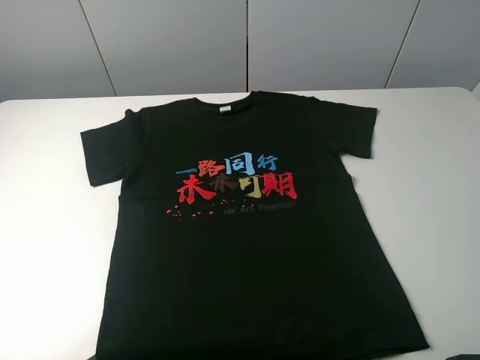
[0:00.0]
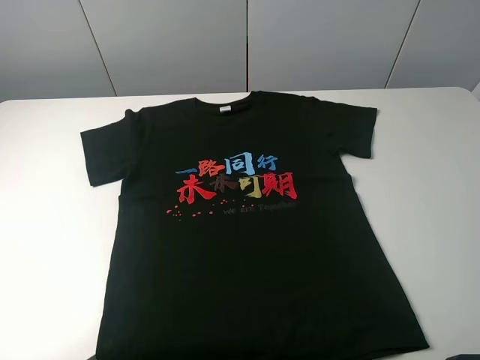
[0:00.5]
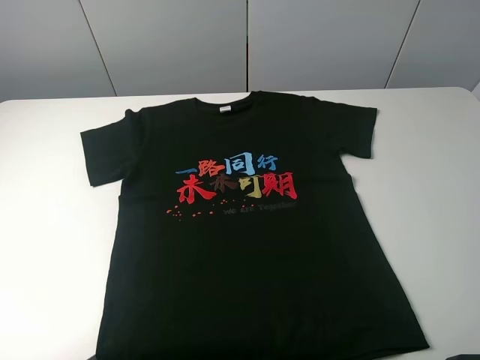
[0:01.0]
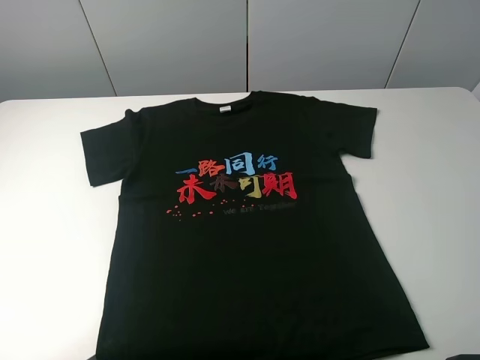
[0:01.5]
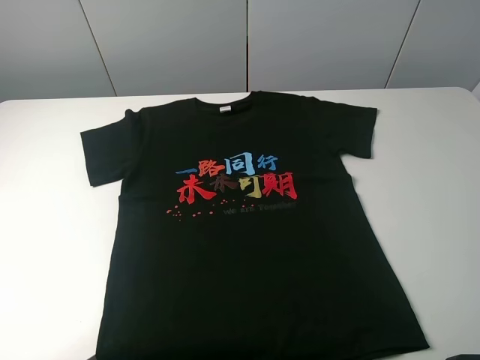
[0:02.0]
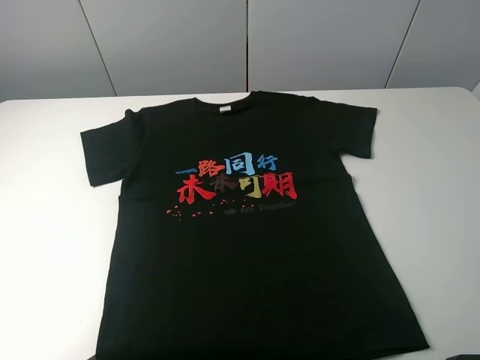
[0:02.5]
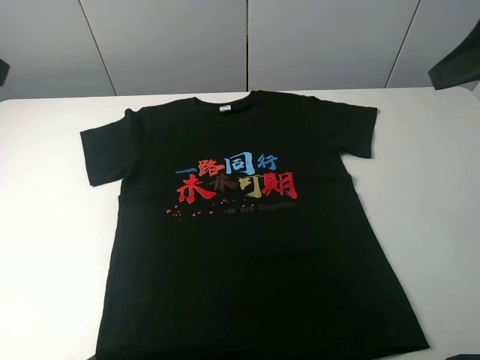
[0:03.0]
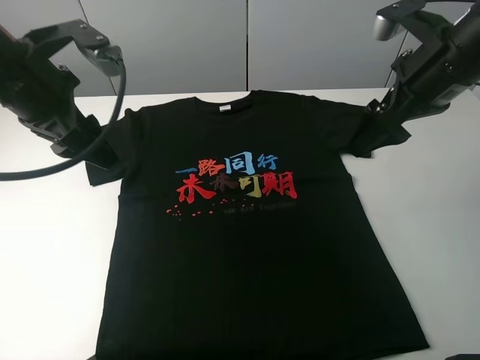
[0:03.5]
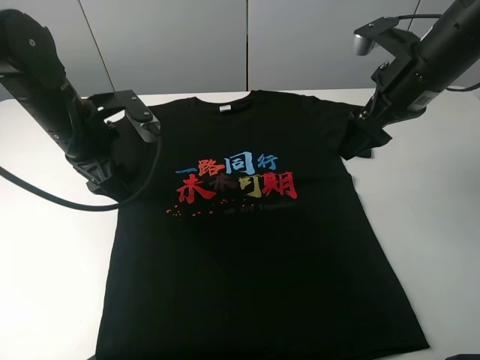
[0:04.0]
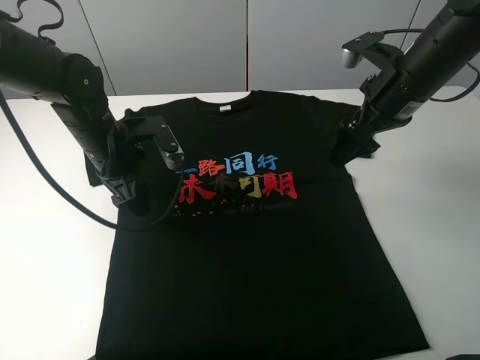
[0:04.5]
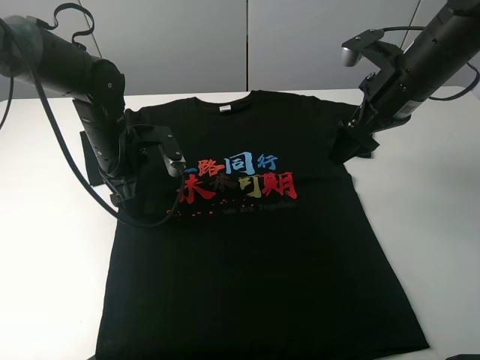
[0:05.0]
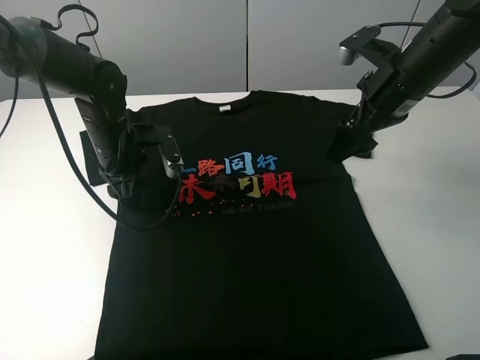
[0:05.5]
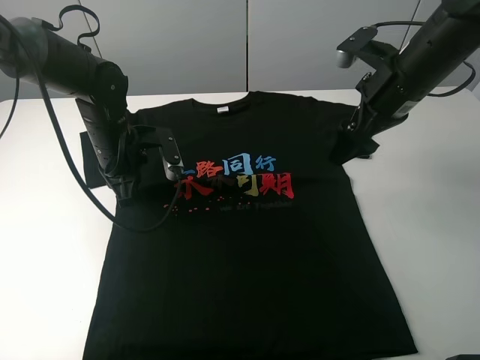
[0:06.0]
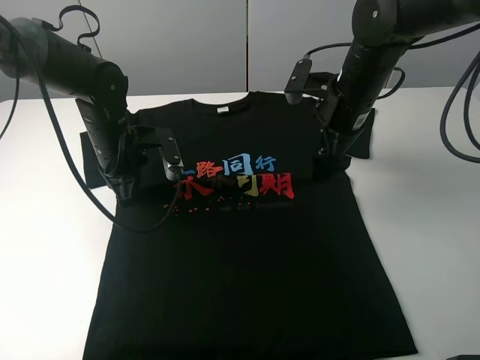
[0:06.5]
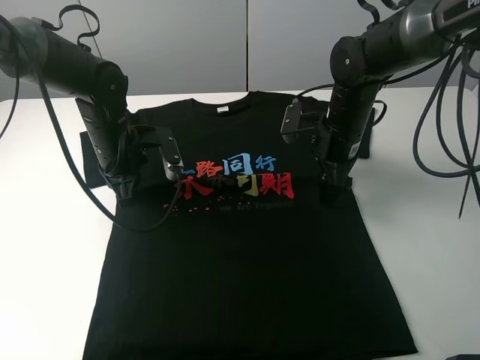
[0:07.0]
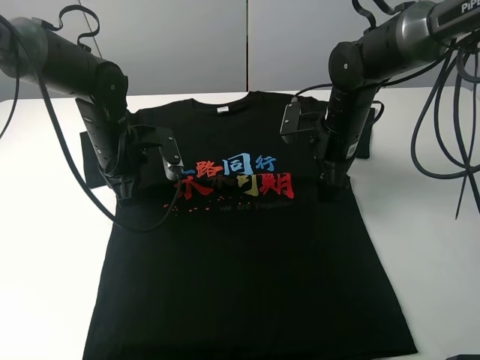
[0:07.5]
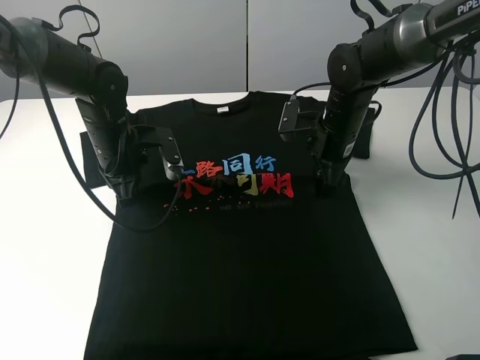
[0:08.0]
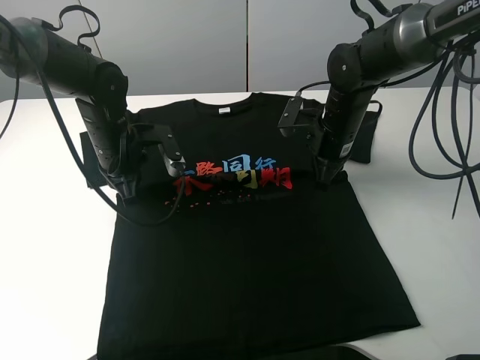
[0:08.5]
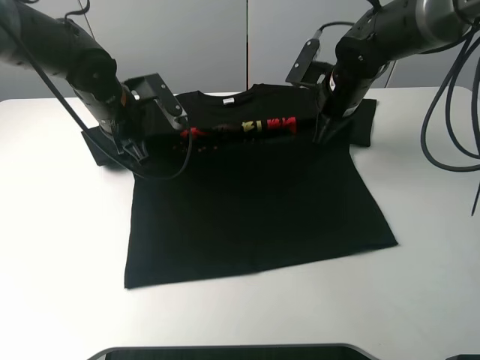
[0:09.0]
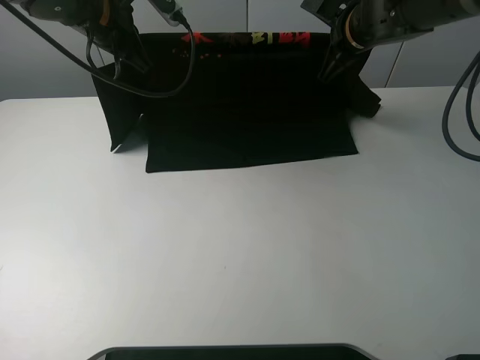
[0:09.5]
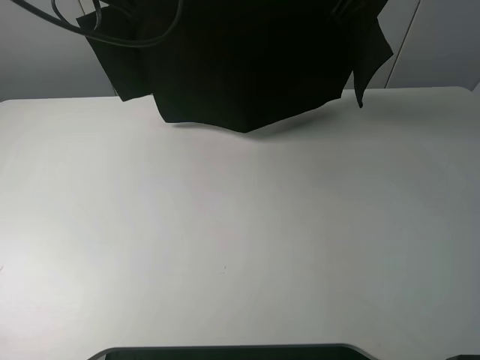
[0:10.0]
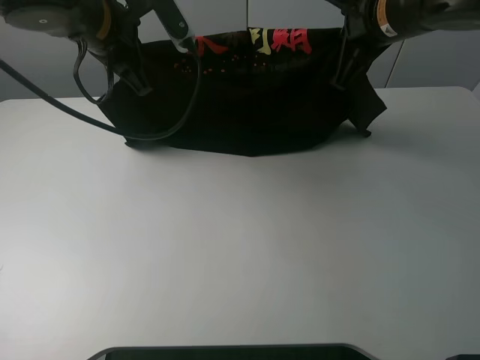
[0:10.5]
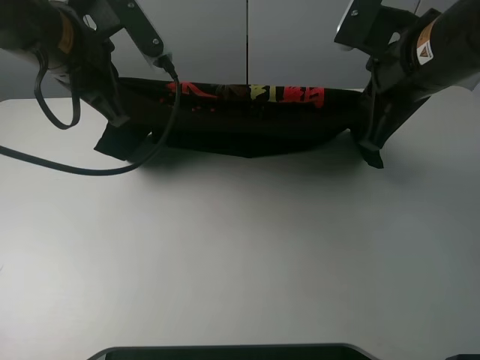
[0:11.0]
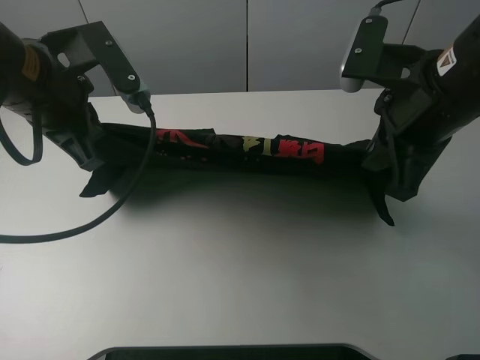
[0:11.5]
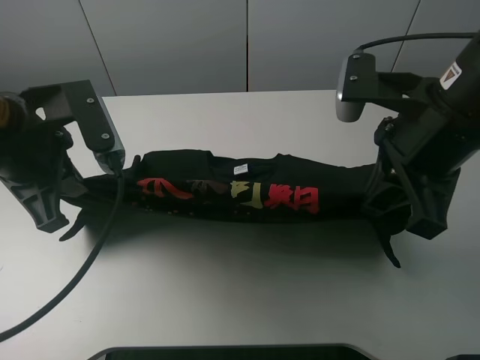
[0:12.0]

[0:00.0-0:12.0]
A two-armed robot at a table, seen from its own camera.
Task of the whole recording: fold the clothes on the table.
Step, 0:00.0 to 0:08.0: Lift the black T-shirt with the left gripper.
0:00.0 to 0:02.0: Both grippers stay put.
0:02.0 to 0:04.0: The left gripper goes roughly 35 cm forward, to the right and downward, while the right gripper travels forward by approximately 30 cm.
0:04.0 to 0:06.0: The left gripper shifts about 5 cm downward, and closes up.
0:06.0 to 0:08.0: The right gripper moves downward, approximately 10 cm, and closes up.
0:08.0 to 0:10.0: The two grippers go roughly 20 cm upward. The right gripper closes its fingers.
0:10.0 to 0:12.0: The left gripper moves backward and downward, approximately 20 cm; the right gripper travels backward by approximately 20 cm.

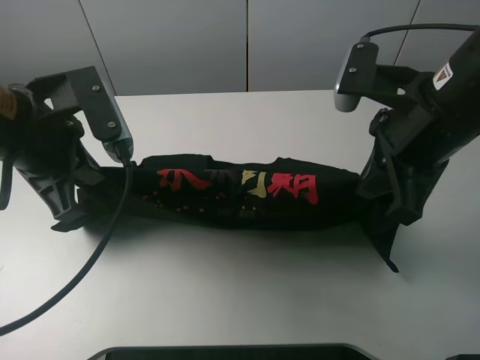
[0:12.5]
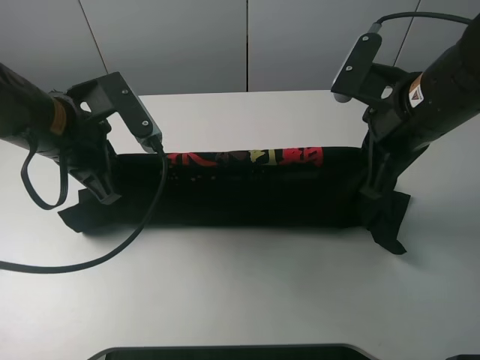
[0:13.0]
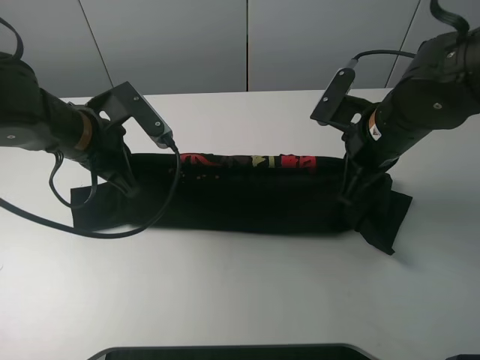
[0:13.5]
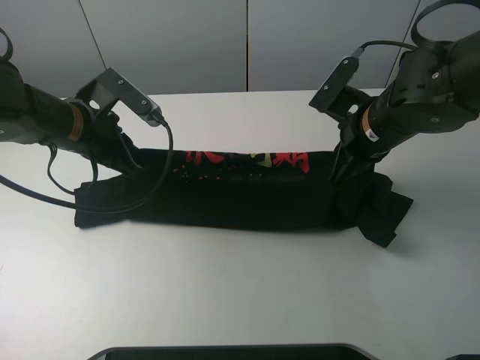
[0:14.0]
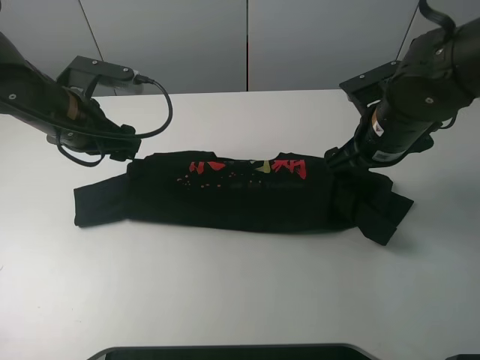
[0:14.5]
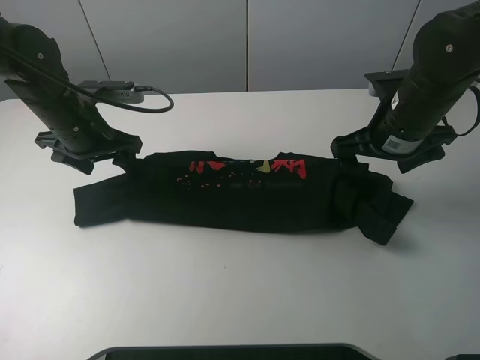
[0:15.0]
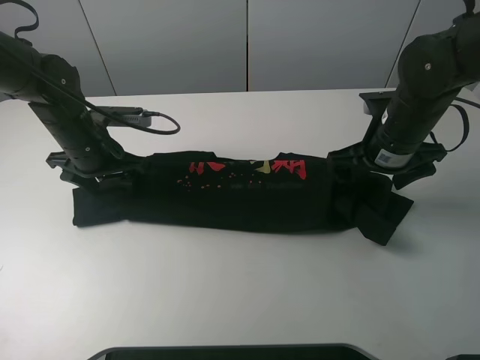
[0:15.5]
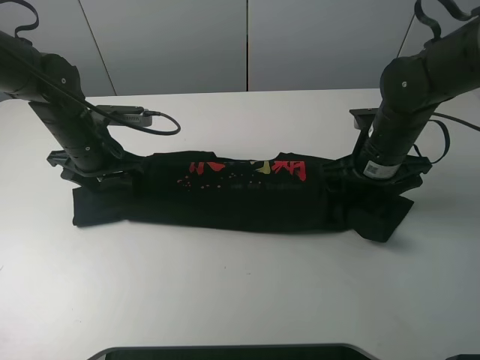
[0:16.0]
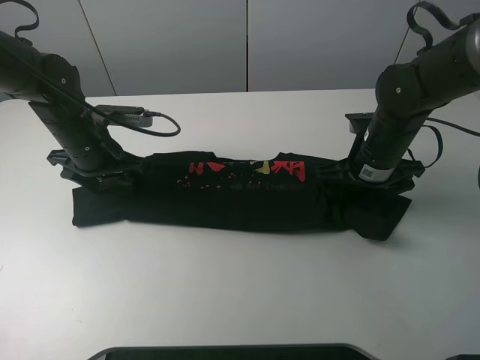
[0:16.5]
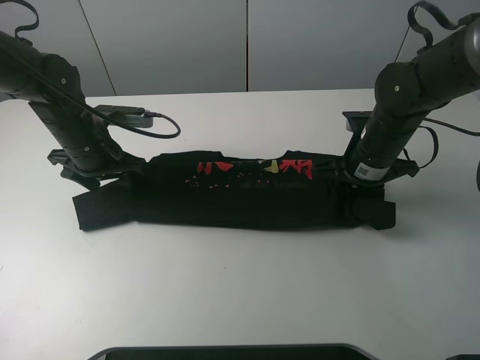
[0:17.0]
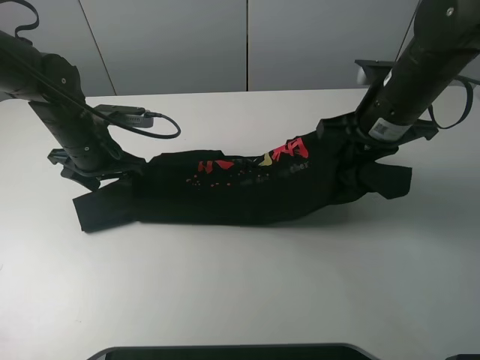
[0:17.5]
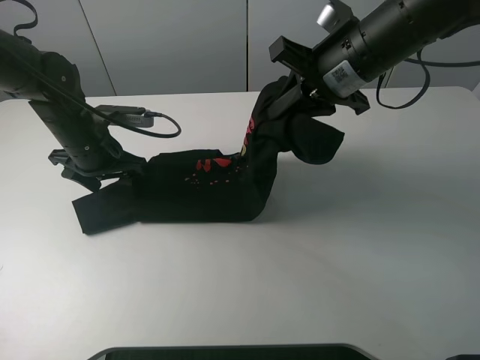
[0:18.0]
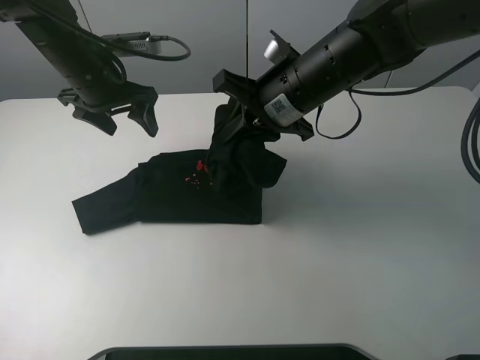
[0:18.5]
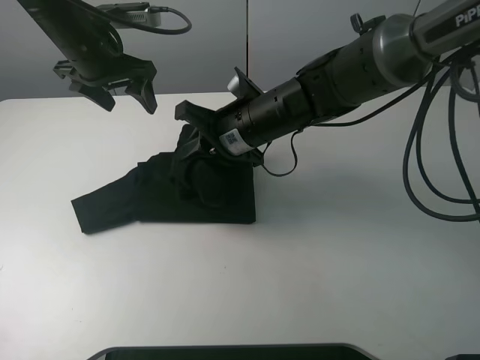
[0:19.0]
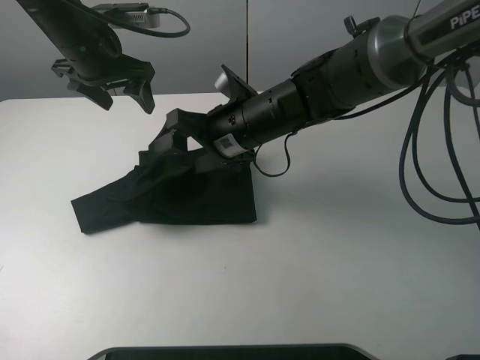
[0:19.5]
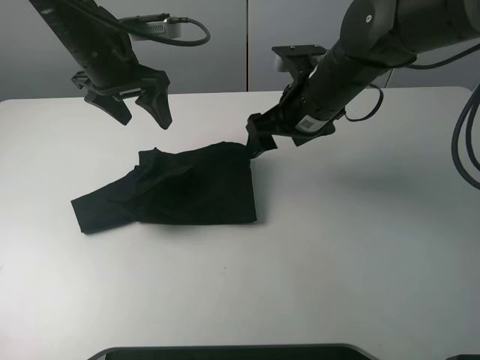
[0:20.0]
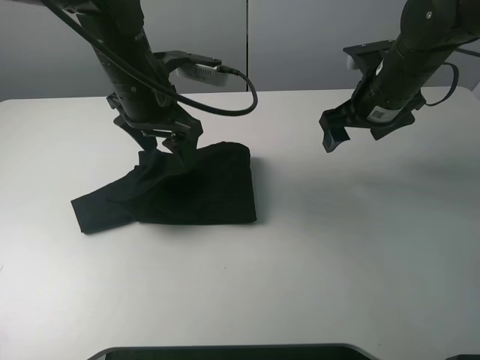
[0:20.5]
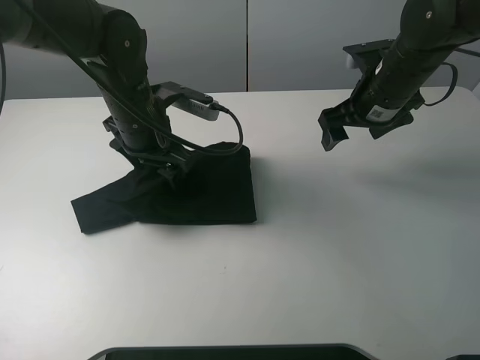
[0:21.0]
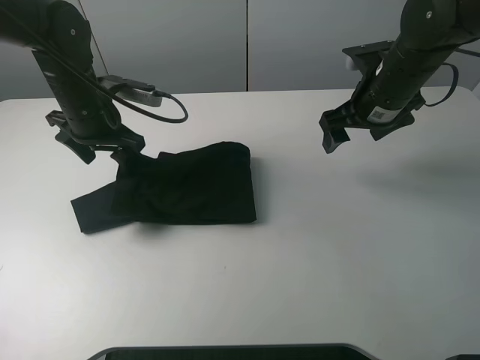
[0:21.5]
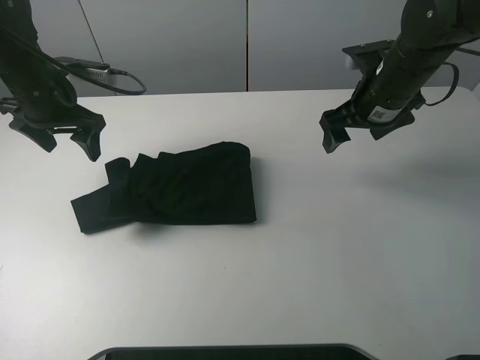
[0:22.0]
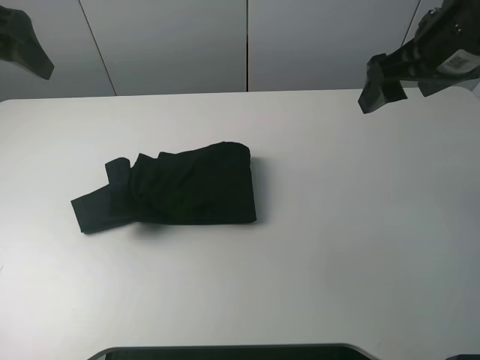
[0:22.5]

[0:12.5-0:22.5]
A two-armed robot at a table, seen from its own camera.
Task of the whole recording: fold the clothes on the table.
Step, 0:14.5 to 0:16.5: Grasp the black T-shirt with the right gripper.
Step, 0:17.0 to 0:19.5: Fold the black T-shirt from right to left with right gripper.
Step, 0:20.0 to 0:21.5: Use the left gripper to tidy up the clothes.
0:12.5 to 0:14.5: The left gripper travels forward and downward by about 10 cm, and opens its fingers, while the right gripper moves downward and forward, approximately 10 cm, and opens its fingers.
0:14.5 to 0:16.5: The grippers both shift downward by about 5 cm.
0:16.5 to 0:18.5: The left gripper moves upward, some 10 cm. Meanwhile the right gripper heads to the left and upward, covering some 15 cm, and closes its fingers.
0:18.5 to 0:20.5: The left gripper heads to the right and backward, covering approximately 10 cm, while the right gripper shifts roughly 15 cm to the right, and opens.
0:20.5 to 0:22.5: The right gripper goes about 15 cm upward and backward; the left gripper is displaced to the left and upward by some 20 cm.

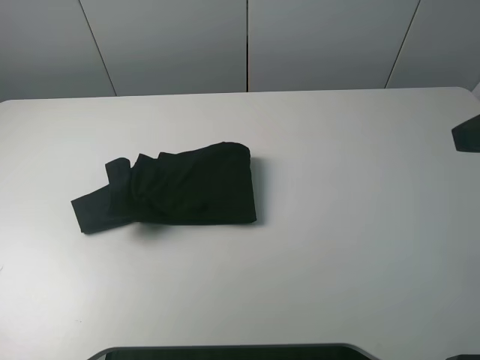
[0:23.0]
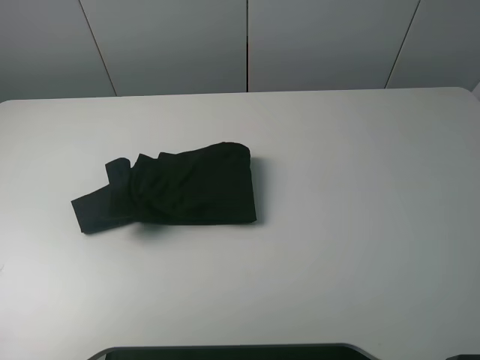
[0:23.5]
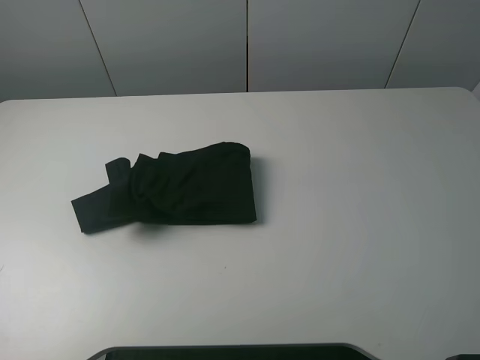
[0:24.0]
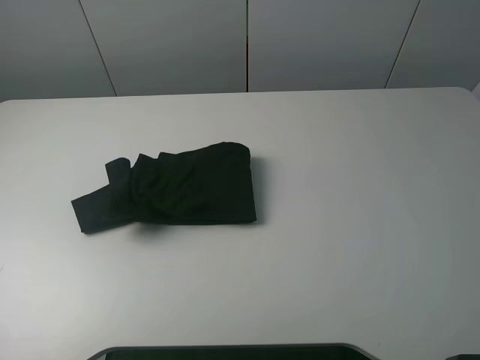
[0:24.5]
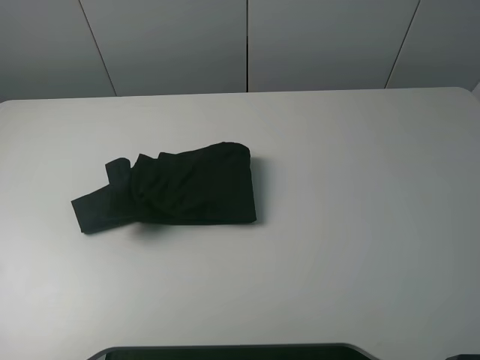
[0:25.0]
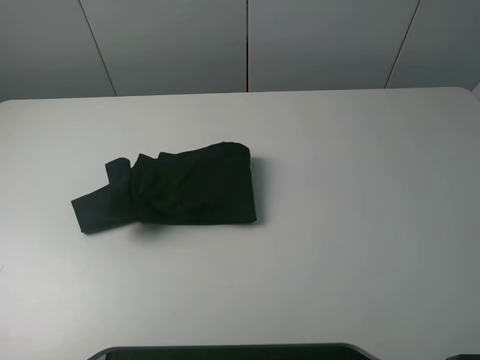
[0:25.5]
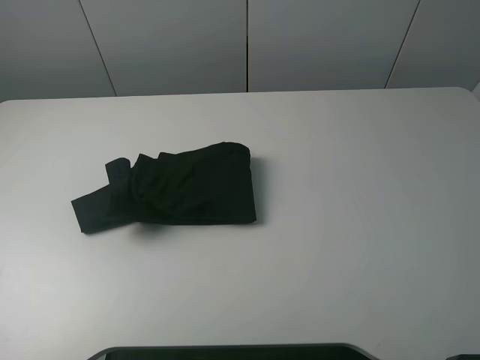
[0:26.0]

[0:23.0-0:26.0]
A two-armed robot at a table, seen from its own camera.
Task of the whole recording: fold the clothes on the table.
0:23.0 to 0:24.5: The right gripper travels backward by roughly 10 cm. The left gripper travels backward and downward by approximately 15 cm.
